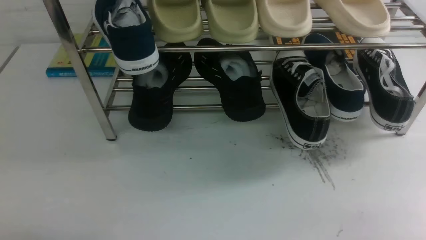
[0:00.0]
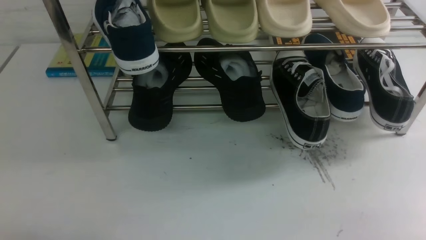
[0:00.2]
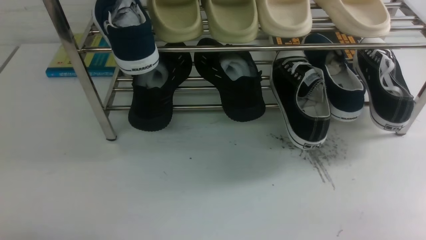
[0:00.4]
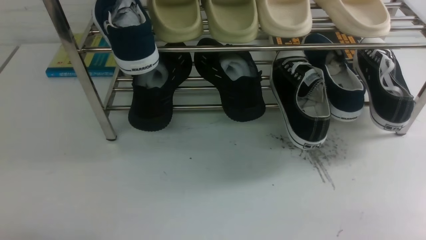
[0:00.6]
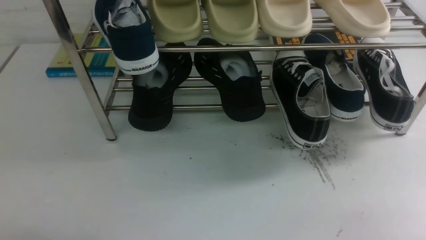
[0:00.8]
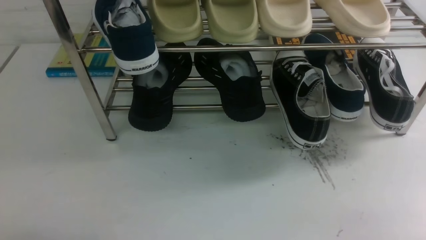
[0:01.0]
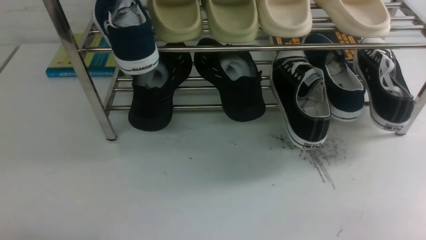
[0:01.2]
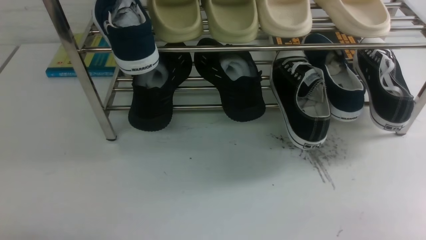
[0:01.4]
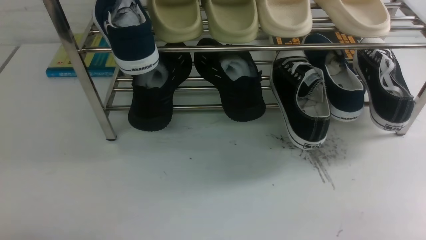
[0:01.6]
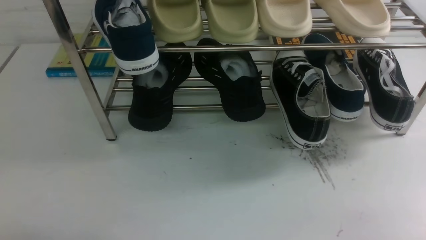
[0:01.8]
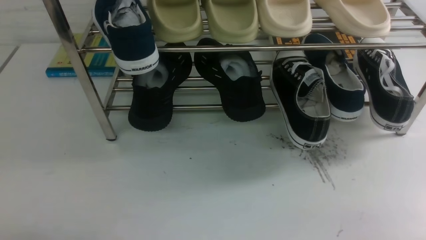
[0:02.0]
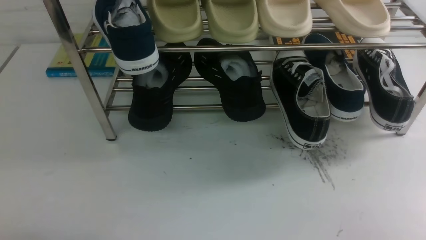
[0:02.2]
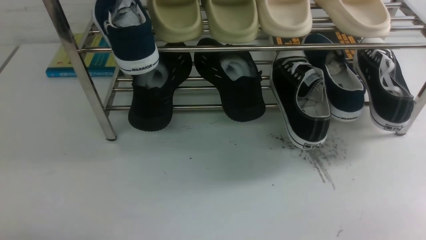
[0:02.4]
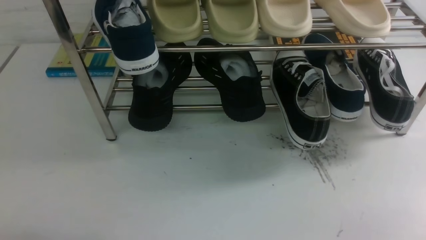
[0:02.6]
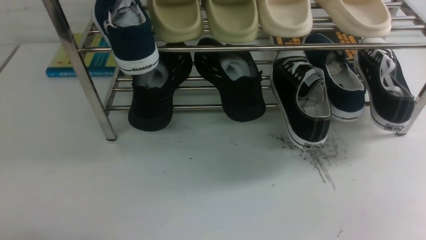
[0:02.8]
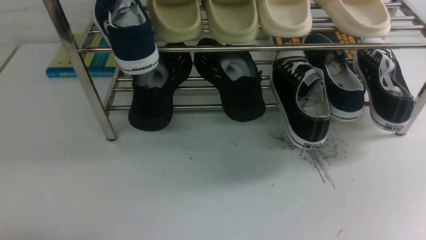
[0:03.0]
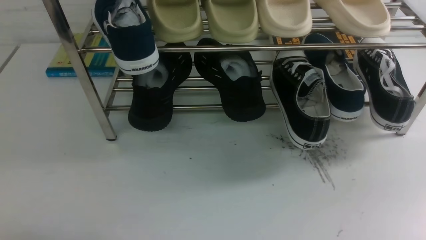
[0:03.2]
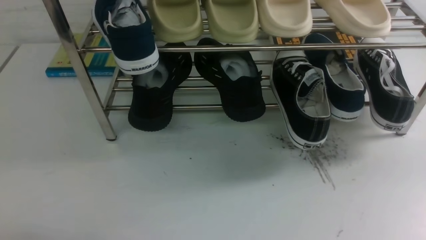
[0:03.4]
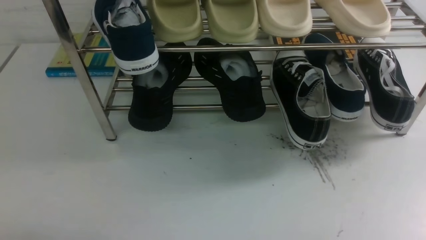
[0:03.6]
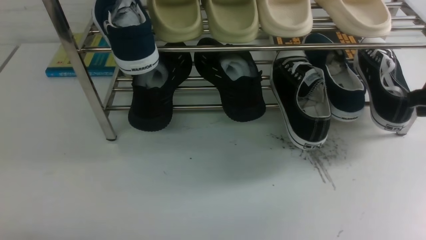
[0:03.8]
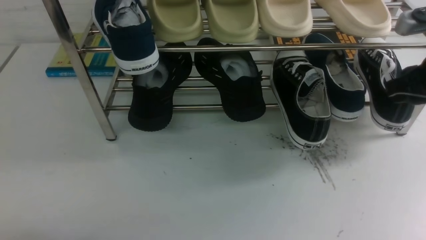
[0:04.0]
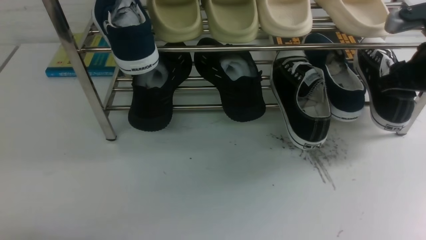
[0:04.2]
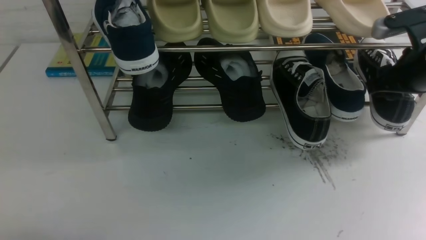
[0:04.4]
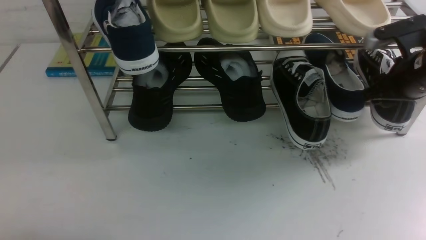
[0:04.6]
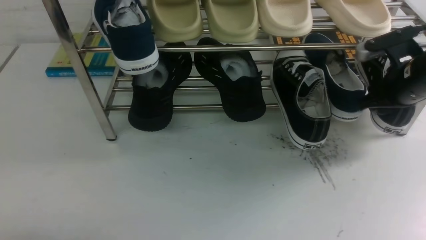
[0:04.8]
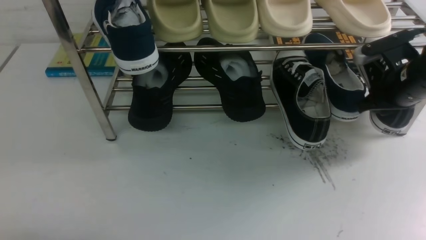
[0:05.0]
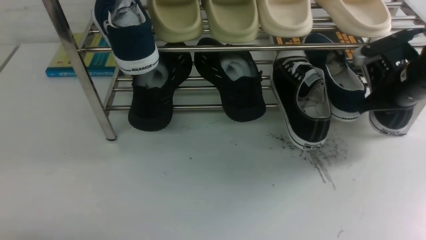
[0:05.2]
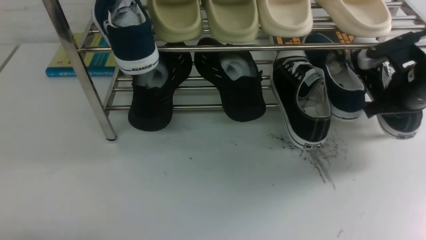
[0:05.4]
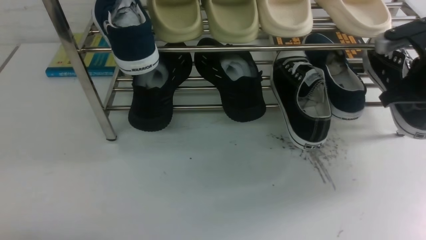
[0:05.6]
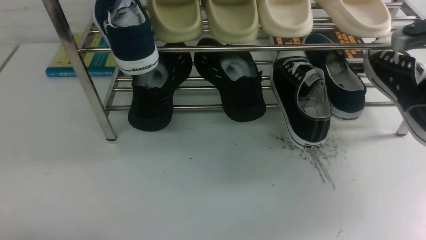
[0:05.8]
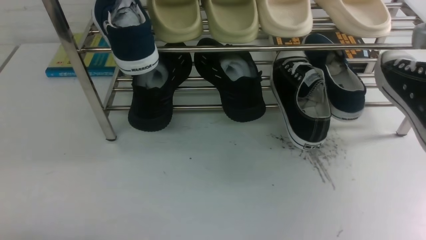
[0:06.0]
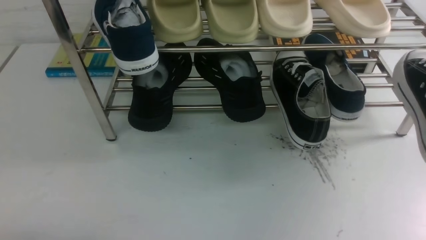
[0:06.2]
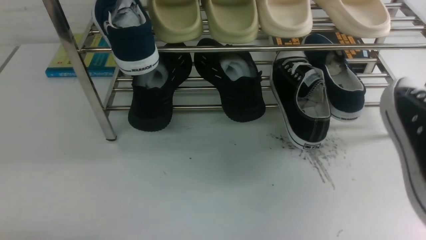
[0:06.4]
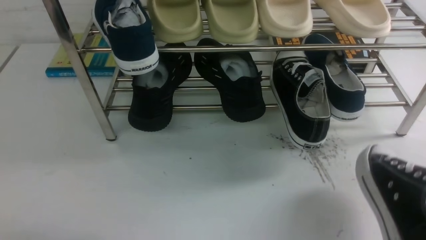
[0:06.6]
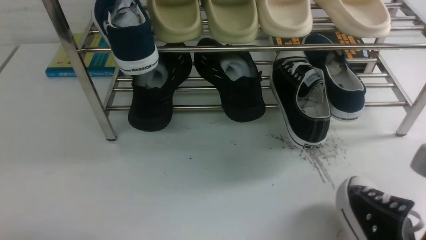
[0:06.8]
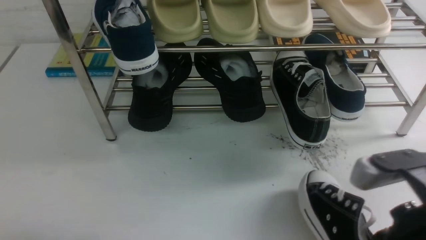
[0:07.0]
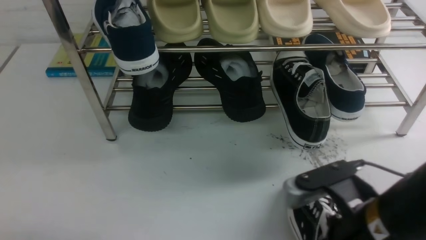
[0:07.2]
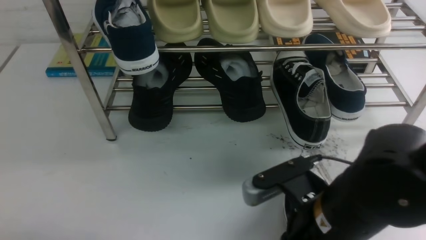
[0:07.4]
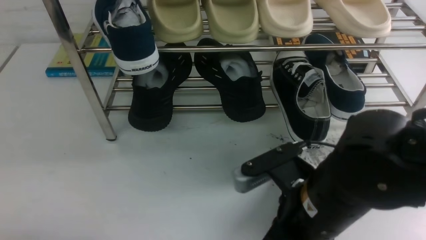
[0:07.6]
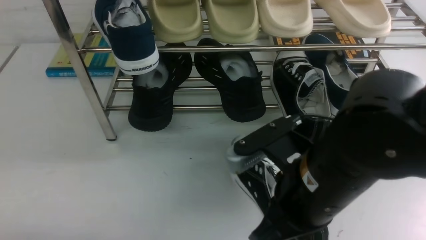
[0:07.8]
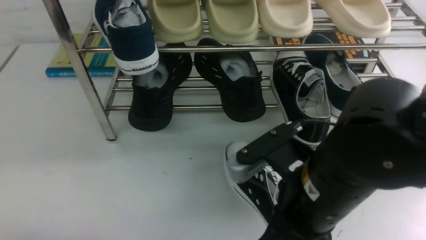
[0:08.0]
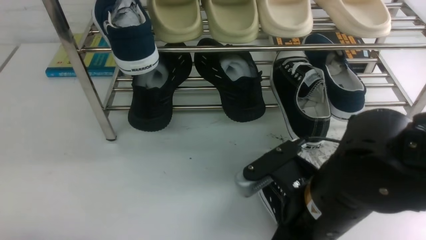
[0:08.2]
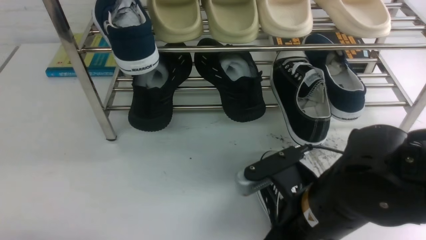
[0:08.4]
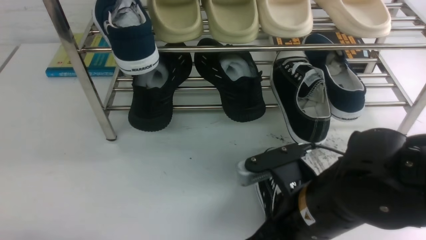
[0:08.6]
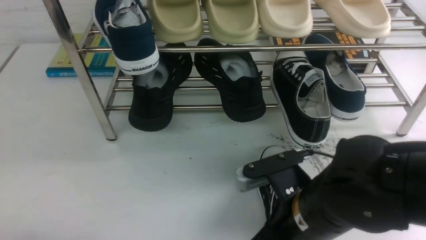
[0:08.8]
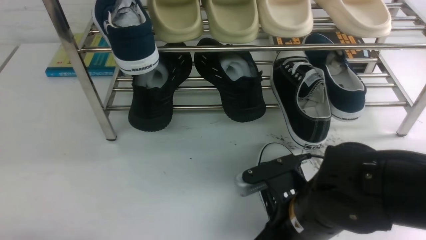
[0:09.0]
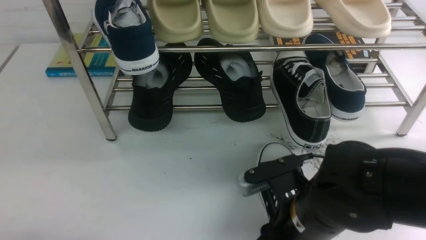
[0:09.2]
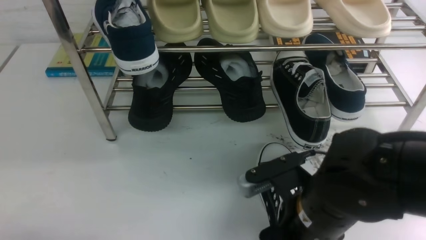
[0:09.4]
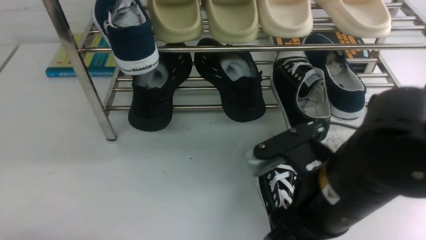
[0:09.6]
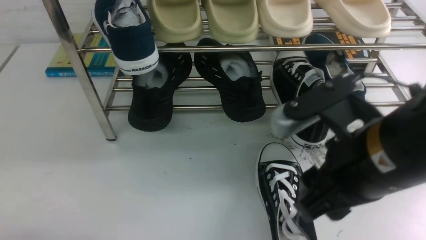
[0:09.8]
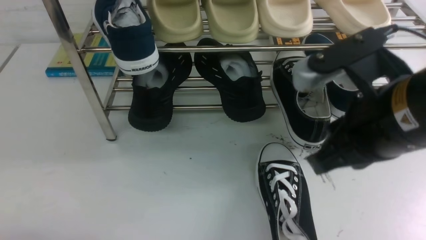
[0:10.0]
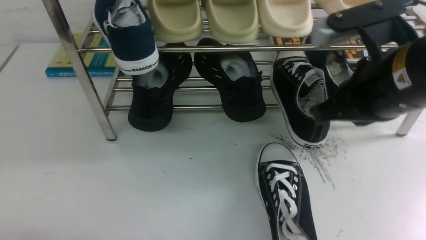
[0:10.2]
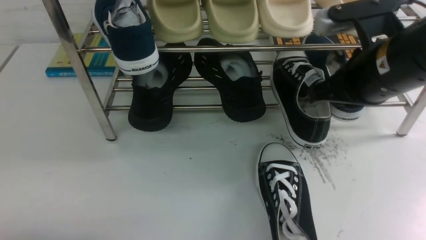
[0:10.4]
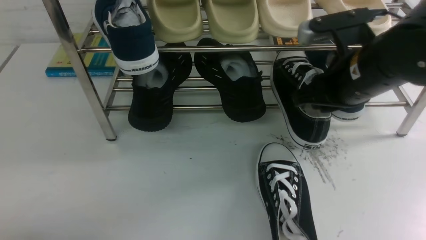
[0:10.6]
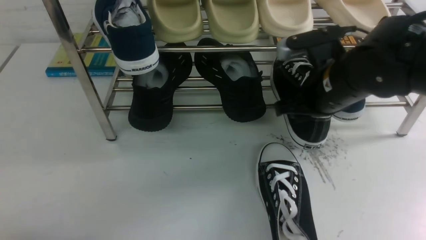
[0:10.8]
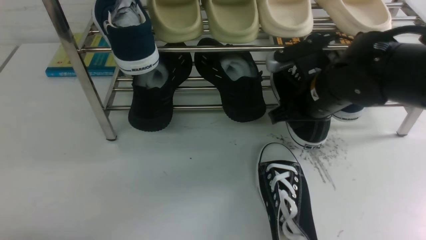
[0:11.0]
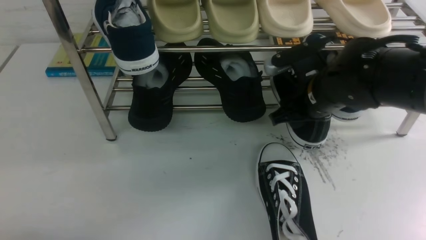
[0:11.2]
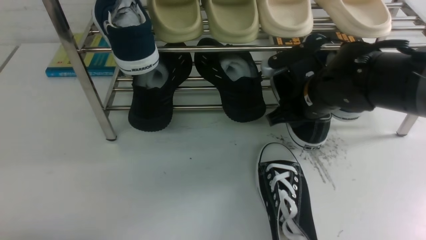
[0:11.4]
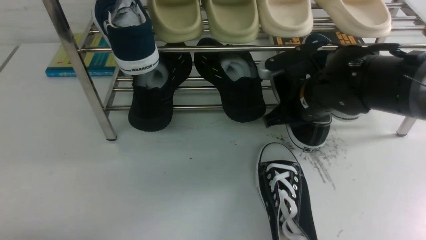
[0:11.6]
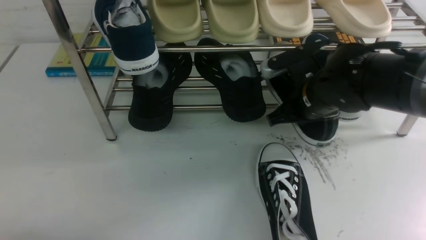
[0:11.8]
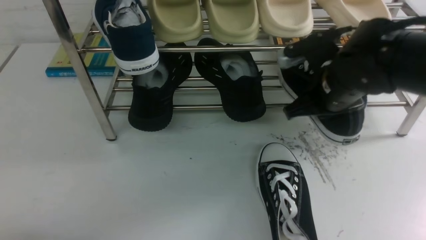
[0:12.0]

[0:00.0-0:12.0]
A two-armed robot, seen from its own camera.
Step, 0:00.0 to 0:05.8: use the right arm to clamp a shoe on the right side of the shoe rack.
Step, 0:06.0 to 0:09.6: use the right arm to take out the clamped shoe from the shoe rack and put it down.
0:00.0 to 0:01.6: Both grippers stay about where they are.
0:03.0 to 0:04.4: The right gripper is displaced forward by some 30 cm, and opens up.
0:04.4 to 0:06.0: The right gripper shifts roughly 10 cm backward and upward, and closes.
0:06.0 to 0:07.6: The right gripper shifts about 25 cm to the left, downward and backward.
0:07.6 to 0:09.0: The right gripper heads downward, covering some 5 cm.
0:09.0 to 0:10.4: The right gripper heads upward, forward and to the right, covering approximately 20 cm, and opens, then closes once more.
0:10.4 to 0:12.0: The right gripper goes roughly 5 cm forward, and opens, then closes again.

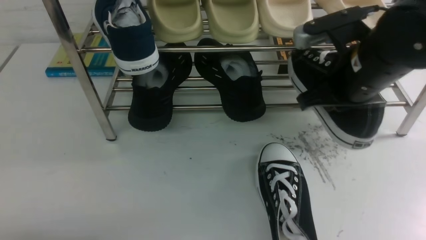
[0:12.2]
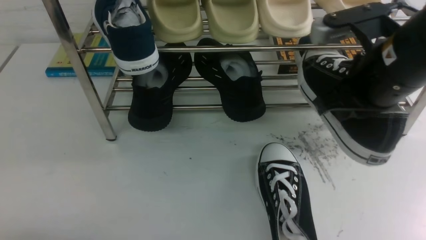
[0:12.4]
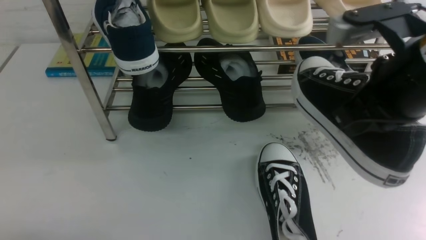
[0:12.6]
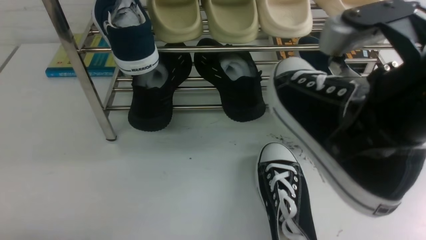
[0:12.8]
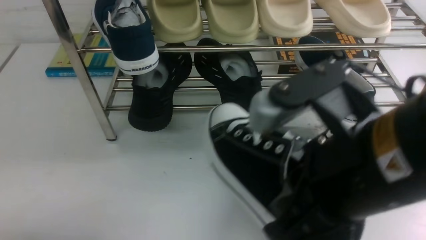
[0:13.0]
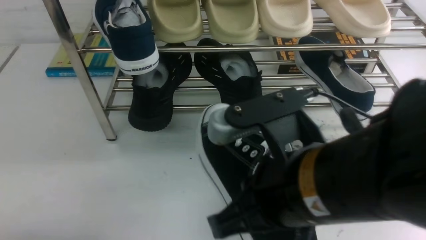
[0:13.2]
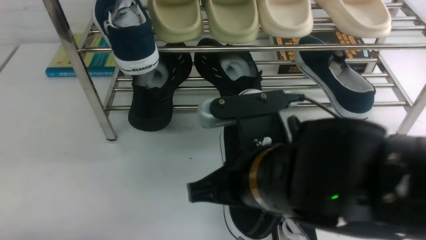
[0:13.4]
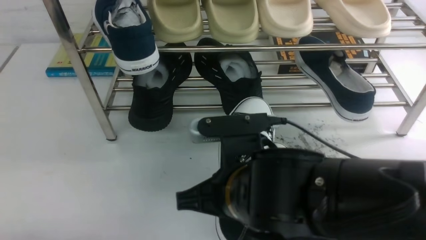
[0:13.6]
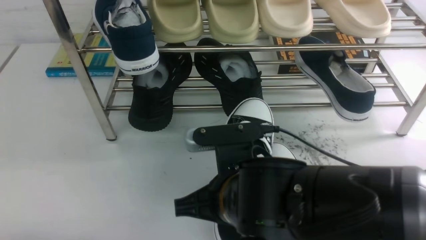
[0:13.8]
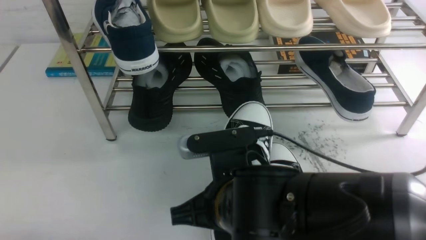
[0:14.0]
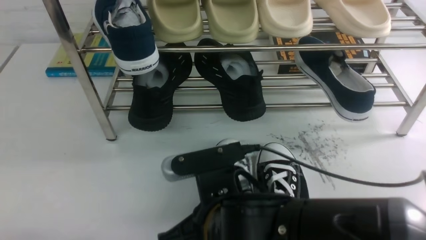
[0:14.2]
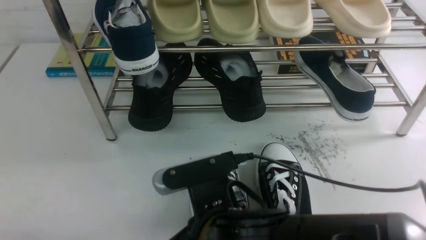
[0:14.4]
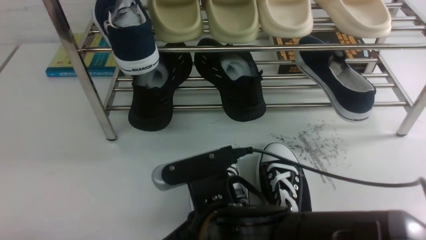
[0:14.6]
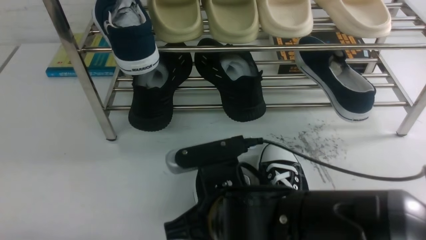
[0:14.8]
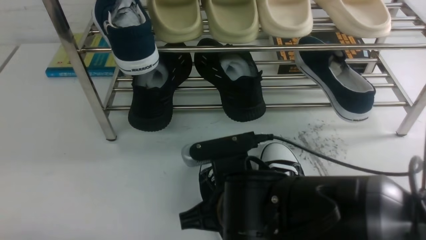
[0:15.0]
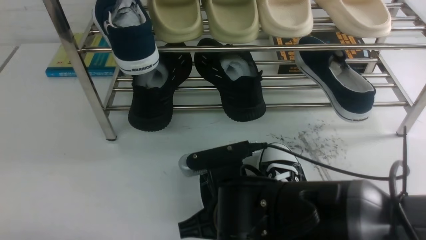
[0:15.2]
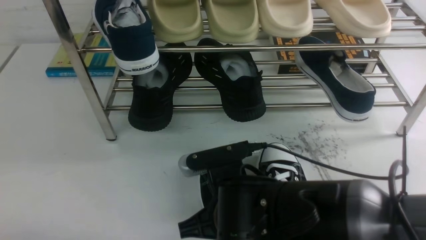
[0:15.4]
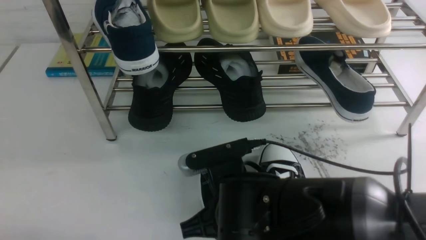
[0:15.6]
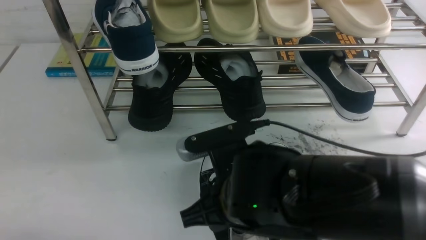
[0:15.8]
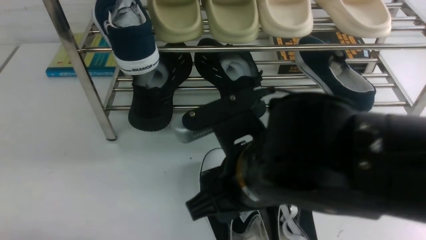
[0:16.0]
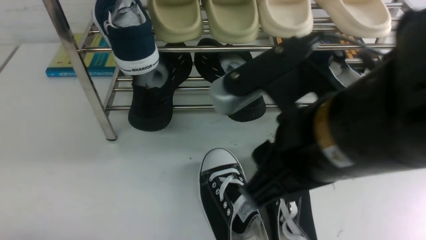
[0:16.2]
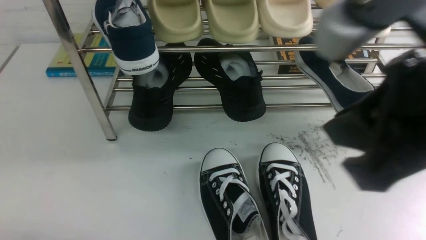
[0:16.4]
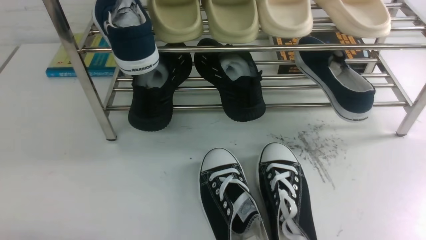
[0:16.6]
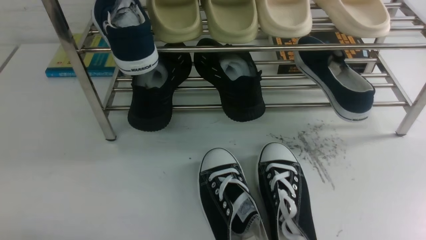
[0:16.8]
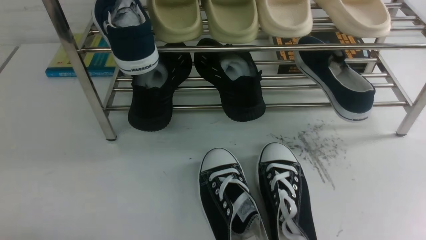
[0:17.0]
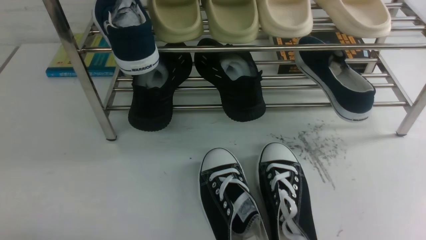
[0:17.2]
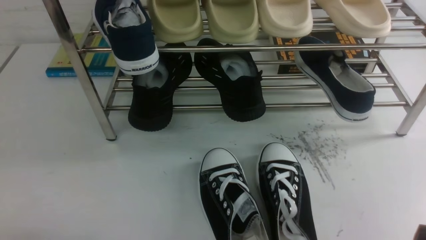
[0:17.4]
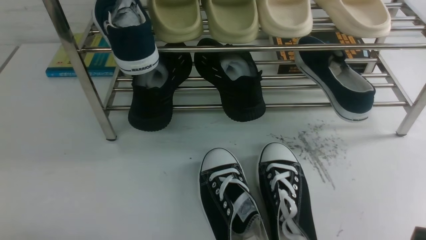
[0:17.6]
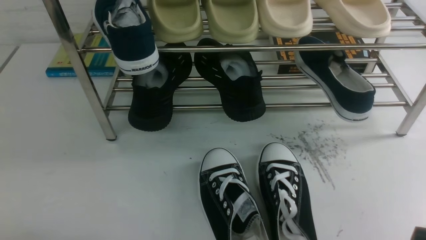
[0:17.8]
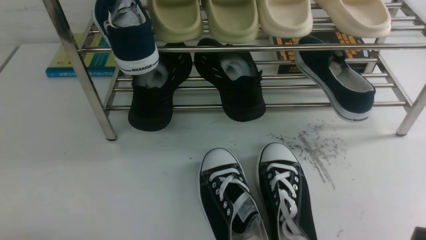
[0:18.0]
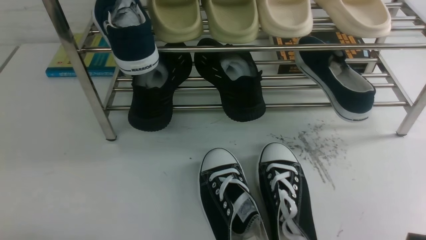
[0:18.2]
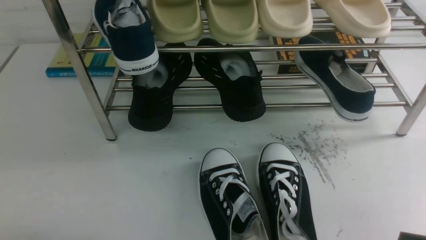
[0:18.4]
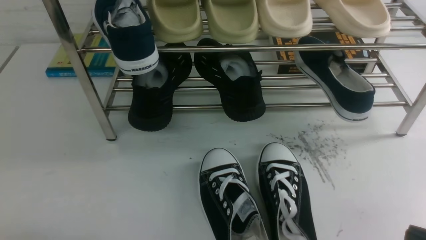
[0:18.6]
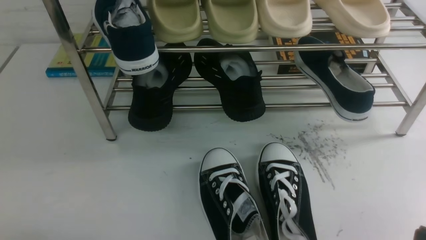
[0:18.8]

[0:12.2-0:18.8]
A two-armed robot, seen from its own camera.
Step, 0:12.4 to 0:16.0: use the right arm to take out the clamped shoe from the shoe rack and put it down.
0:12.2 to 0:13.8: The right gripper travels to the left, backward and downward by about 20 cm.
0:13.8 to 0:15.4: The grippers make only small movements.
0:15.4 to 0:17.2: The right gripper moves to the right and backward, roughly 30 cm, and closes up.
